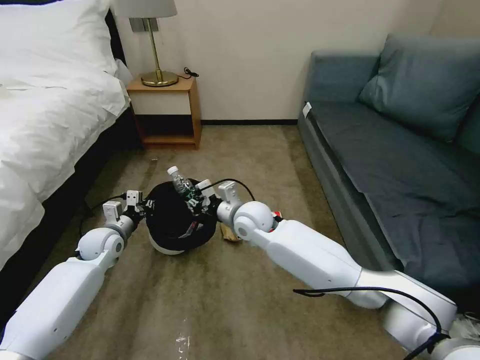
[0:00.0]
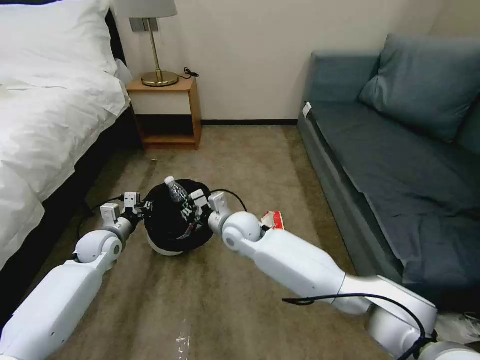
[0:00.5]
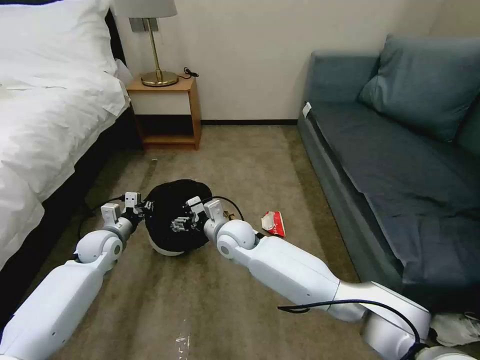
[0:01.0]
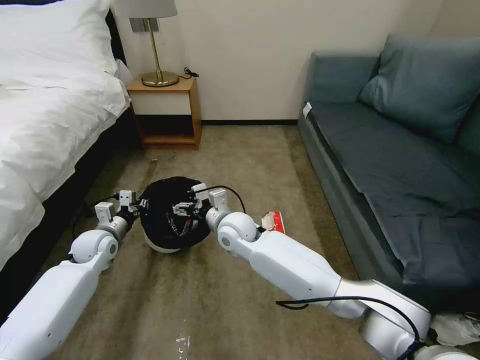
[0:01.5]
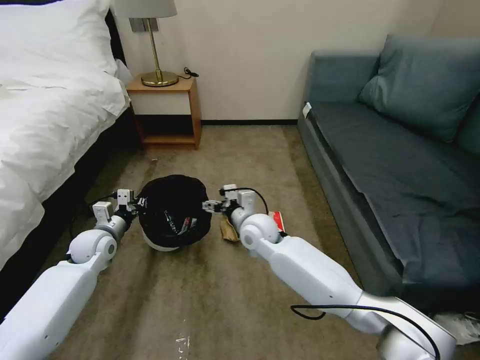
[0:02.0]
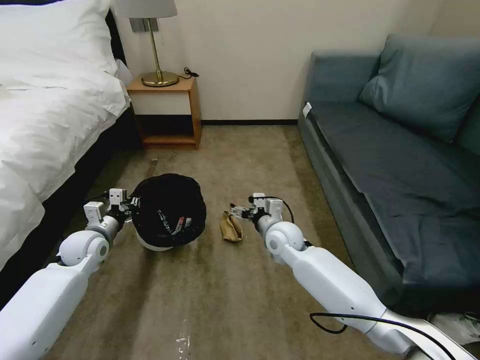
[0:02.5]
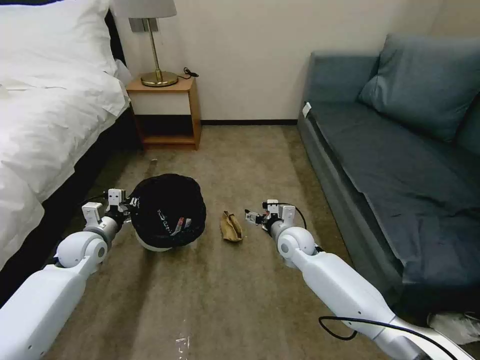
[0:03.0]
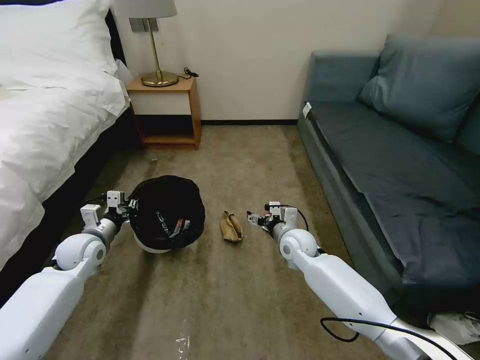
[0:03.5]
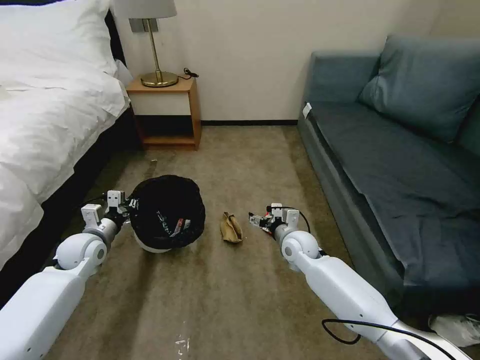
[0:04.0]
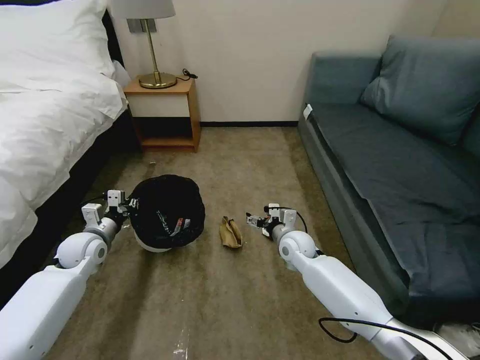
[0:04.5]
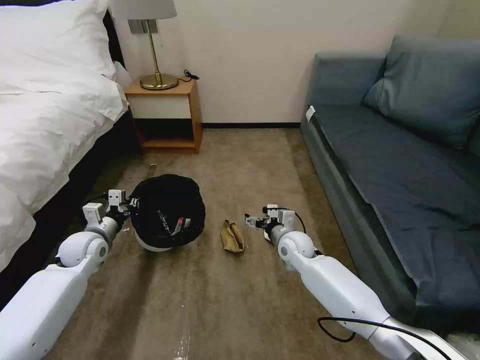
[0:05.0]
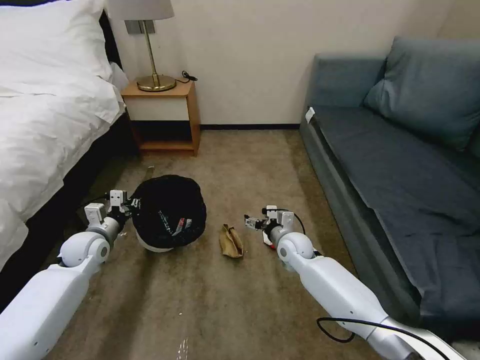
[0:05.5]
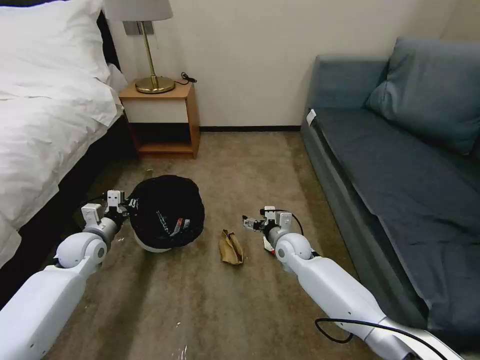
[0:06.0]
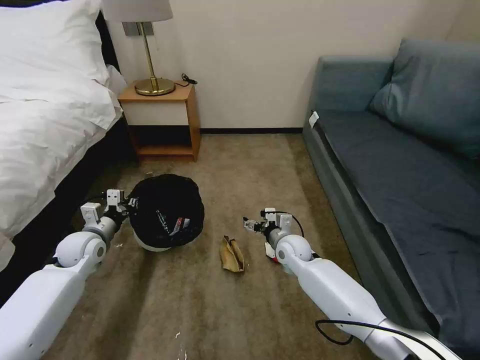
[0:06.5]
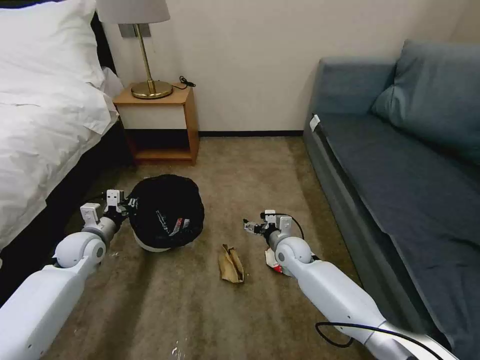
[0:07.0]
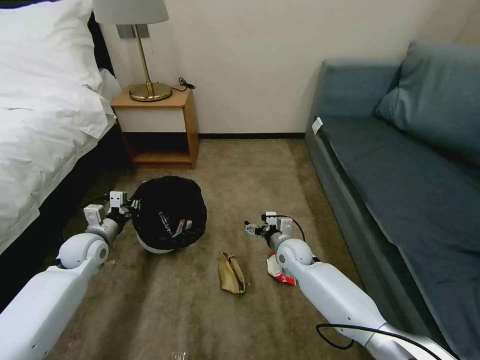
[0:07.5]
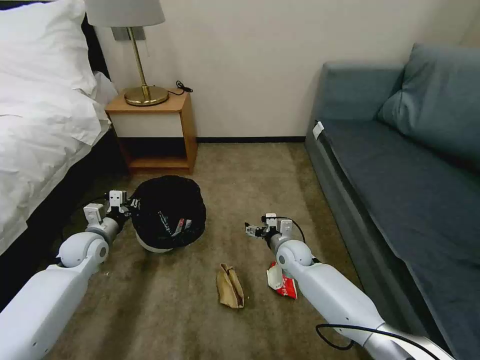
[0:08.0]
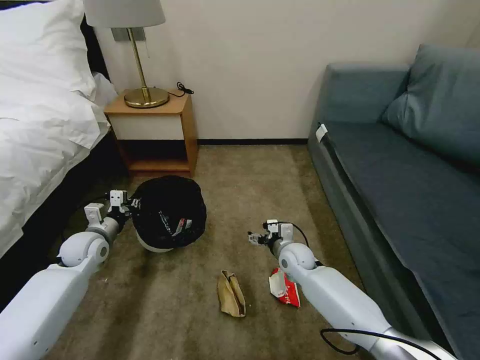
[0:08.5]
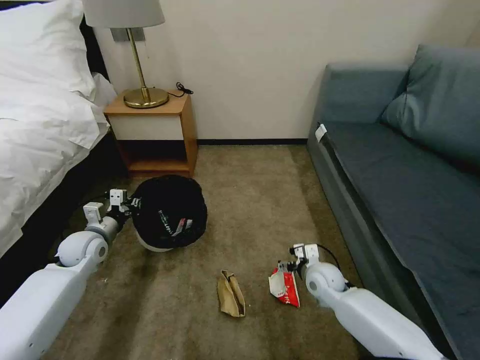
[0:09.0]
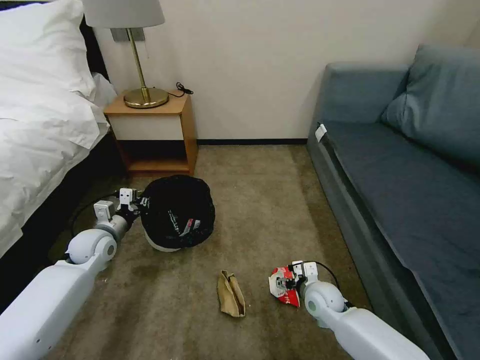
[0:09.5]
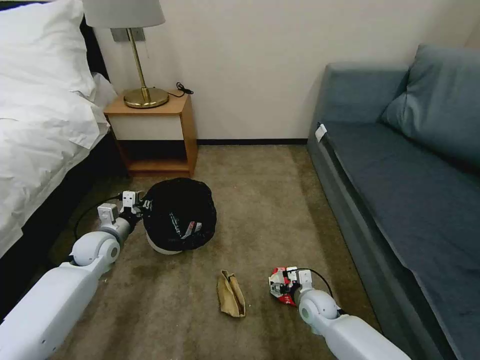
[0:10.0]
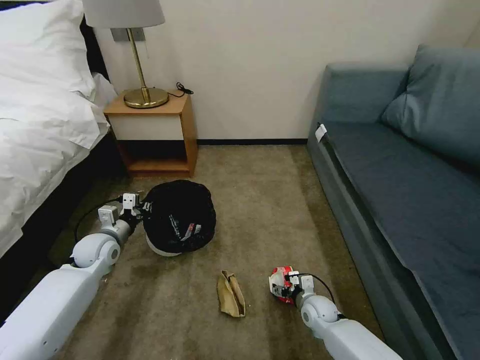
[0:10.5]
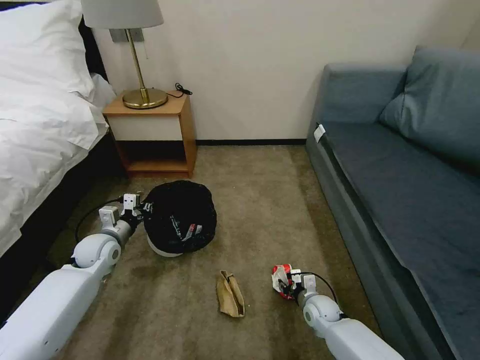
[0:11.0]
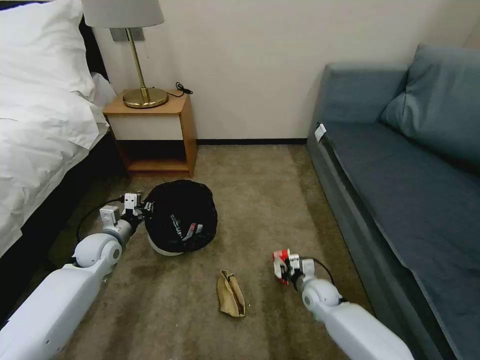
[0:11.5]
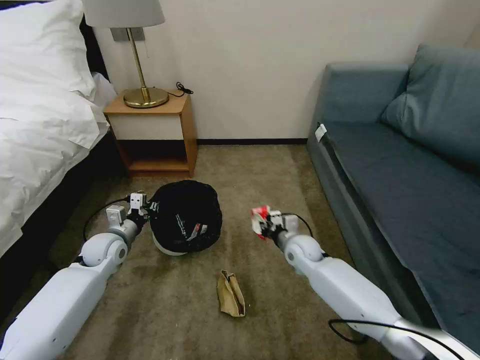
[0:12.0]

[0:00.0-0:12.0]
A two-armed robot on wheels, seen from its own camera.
Task of the whole recording: Pick up the trash bin, then pick up the garbage on the floor and place it into the trash bin.
0:00.0 to 0:02.0: The right gripper opens.
0:02.0 to 0:04.0: The right gripper goes about 15 cm to the right and downward.
0:04.0 to 0:08.0: The grippers stay close to where they were, moving slightly.
0:08.0 to 0:10.0: The right gripper heads backward, downward and to the right, covering roughly 15 cm.
0:10.0 to 0:12.0: The right gripper shifts about 15 cm forward and upward, and closes its fingers.

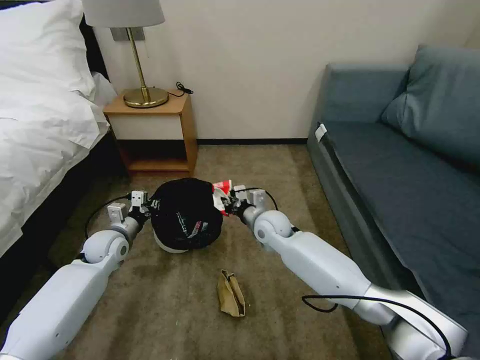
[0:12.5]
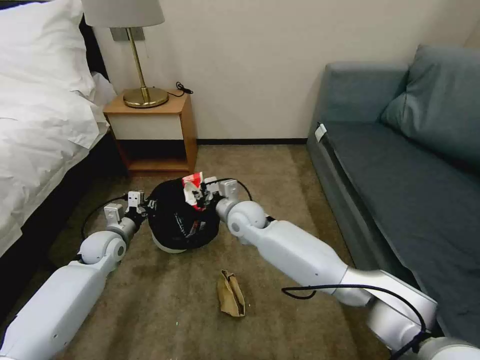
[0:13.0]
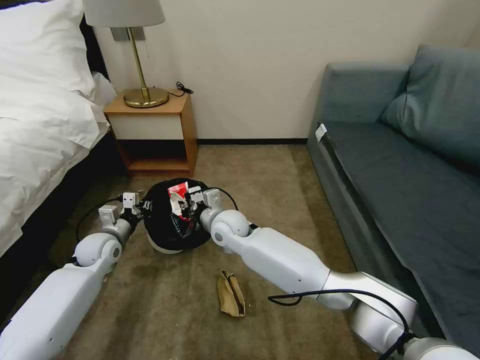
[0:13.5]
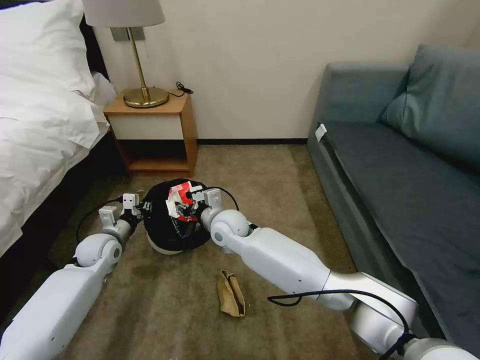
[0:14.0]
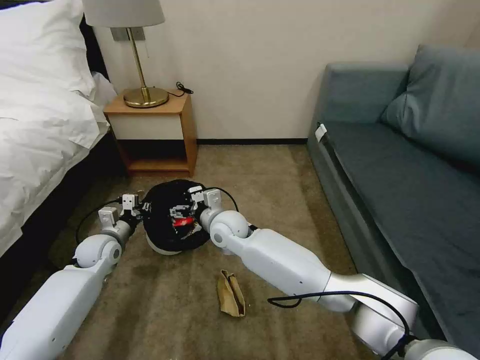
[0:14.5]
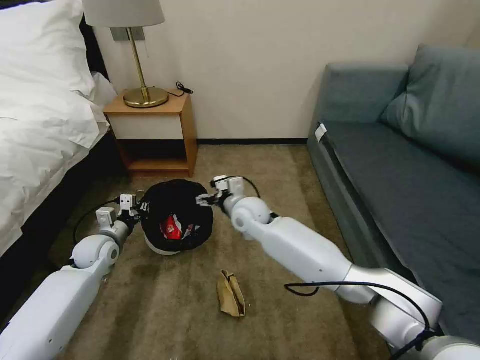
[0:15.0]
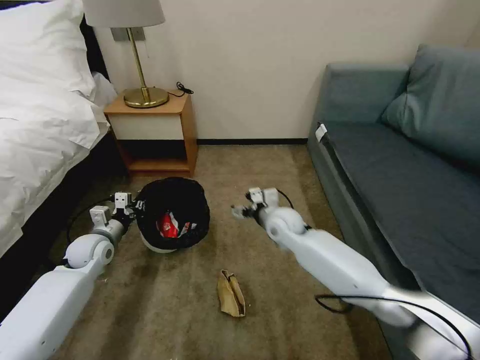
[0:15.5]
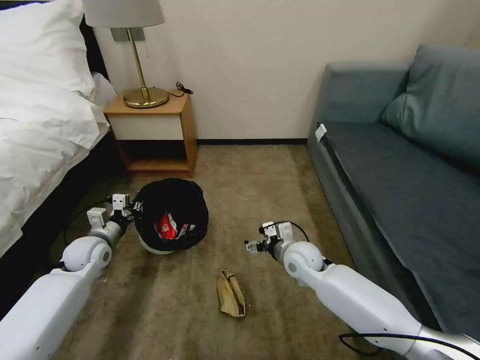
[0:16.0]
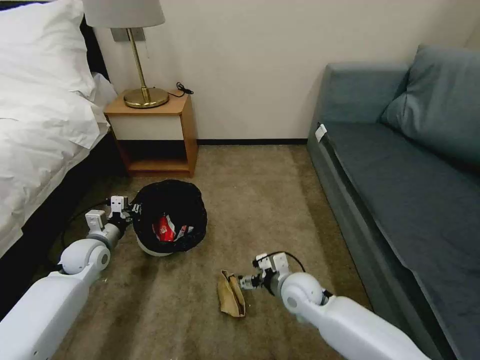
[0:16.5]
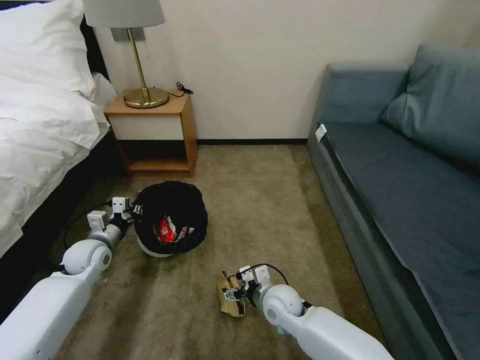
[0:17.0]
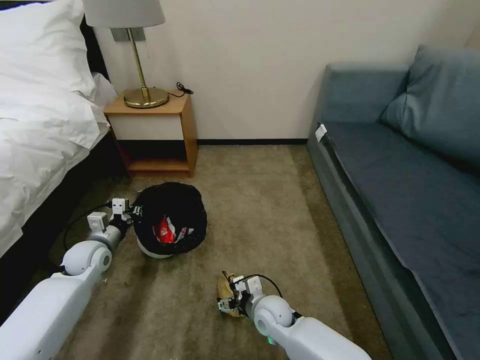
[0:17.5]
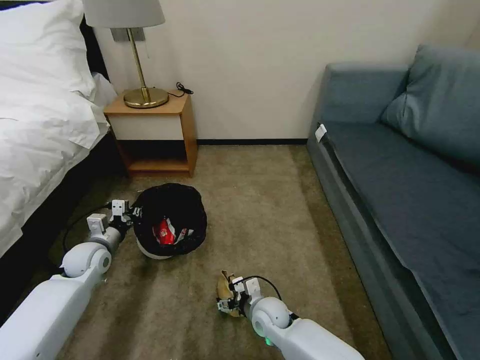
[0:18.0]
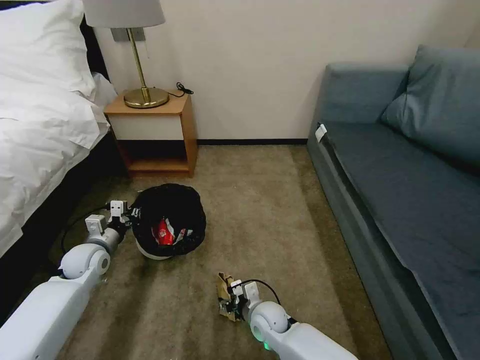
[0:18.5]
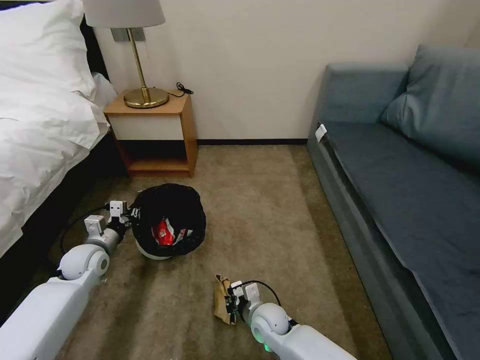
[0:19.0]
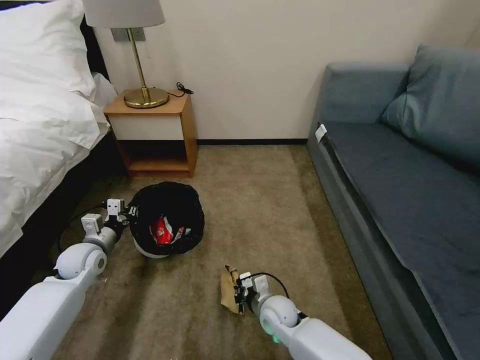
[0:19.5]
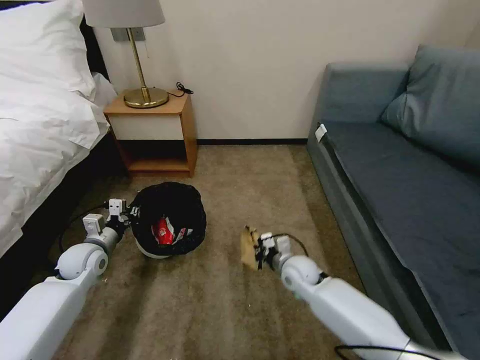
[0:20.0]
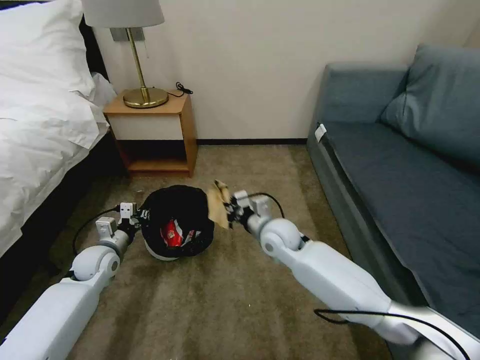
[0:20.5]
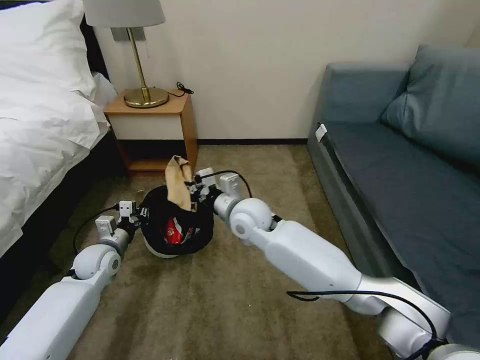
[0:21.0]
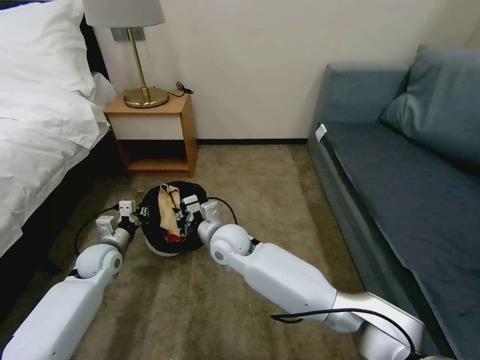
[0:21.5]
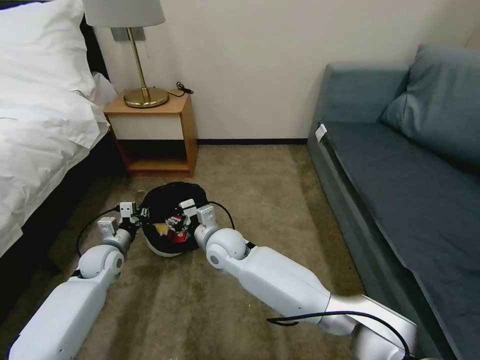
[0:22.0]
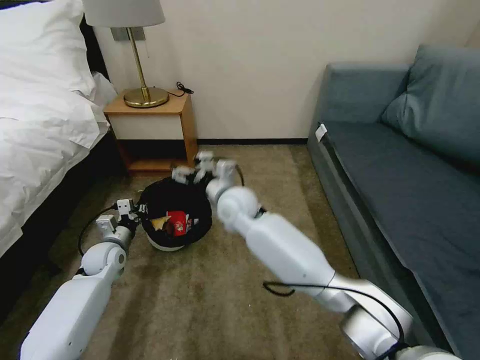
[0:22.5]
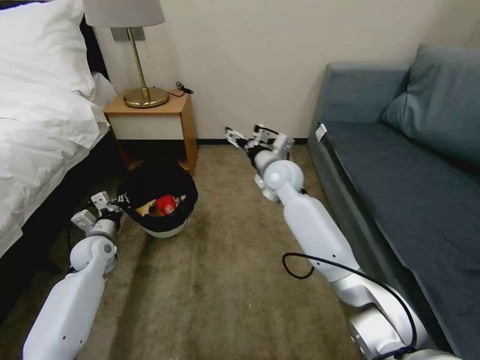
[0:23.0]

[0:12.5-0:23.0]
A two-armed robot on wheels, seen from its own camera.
Task of the whole recording: Pick up the trash bin, then pick up the garbage on the floor and place it into the trash bin.
0:12.5 to 0:14.5: The right gripper travels to the left by roughly 10 cm, and opens.
0:14.5 to 0:16.5: The right gripper heads to the right, backward and downward, covering some 25 cm.
0:16.5 to 0:19.0: The right gripper travels downward and to the left by roughly 15 cm, and closes up.
0:19.0 to 0:21.0: The right gripper shifts approximately 30 cm upward and forward.
0:21.0 to 0:23.0: The right gripper goes roughly 15 cm to the right and forward, and opens its fingers.

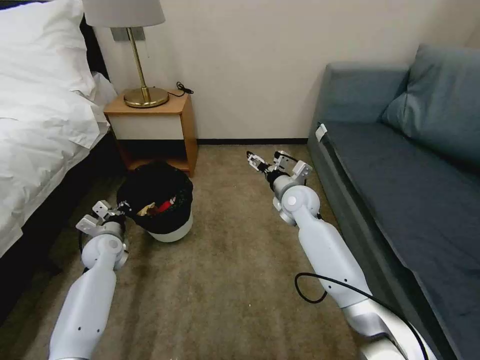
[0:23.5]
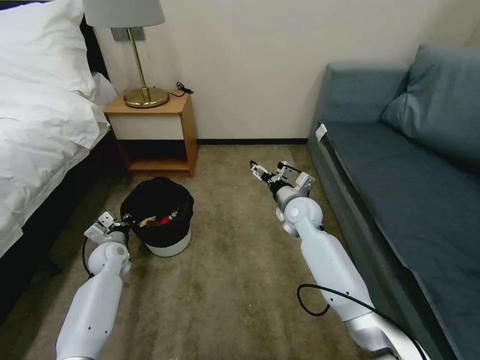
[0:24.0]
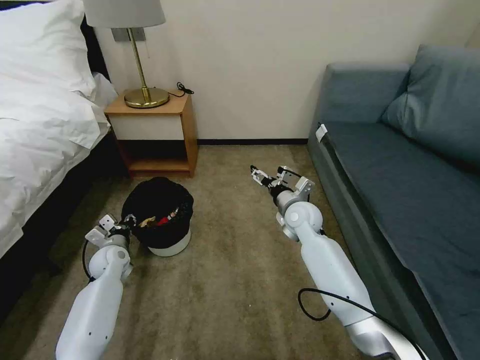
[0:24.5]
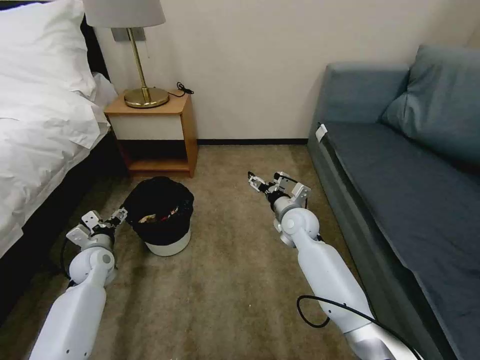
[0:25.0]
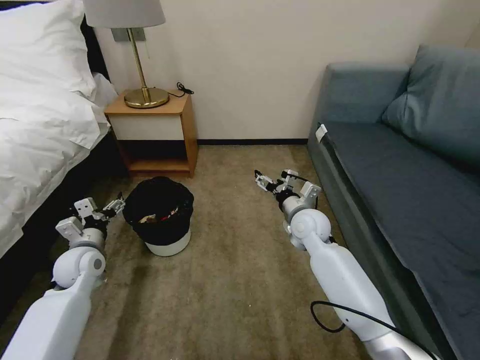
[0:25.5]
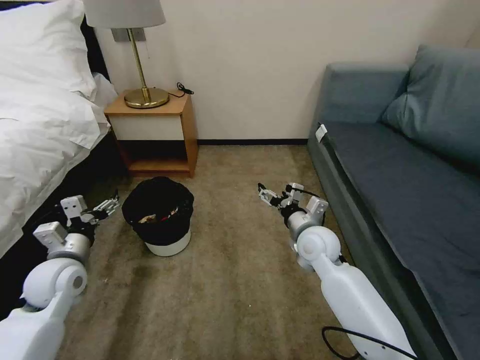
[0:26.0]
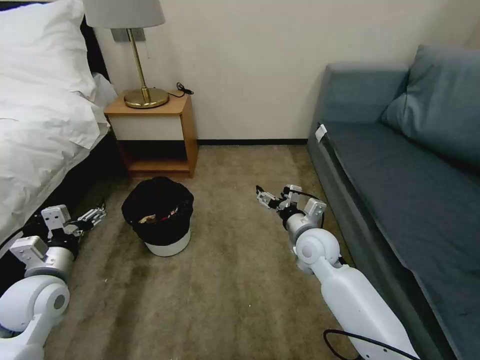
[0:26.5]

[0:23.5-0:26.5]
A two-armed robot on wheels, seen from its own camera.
Task of the whole recording: Pick up the trash bin, then pick up the garbage on the floor and place it into the trash bin.
0:23.5 to 0:25.0: The left gripper opens up; the right gripper moves about 5 cm.
0:25.0 to 0:26.5: The left gripper goes some 15 cm backward and upward, while the right gripper moves backward, about 10 cm.
